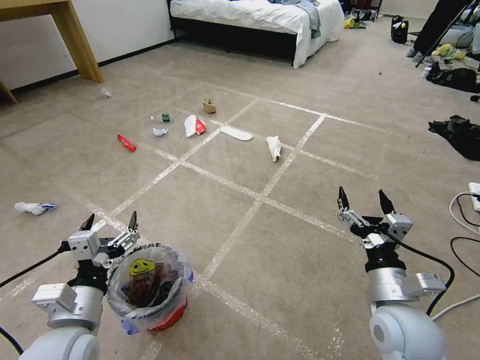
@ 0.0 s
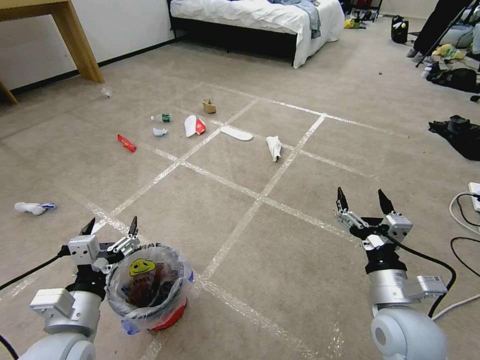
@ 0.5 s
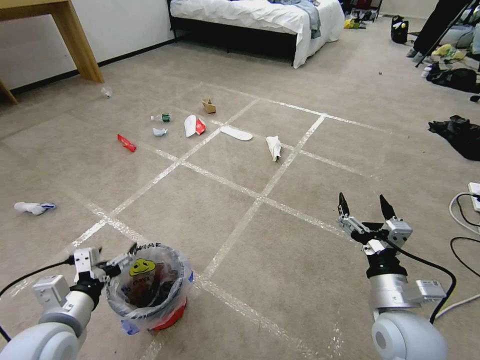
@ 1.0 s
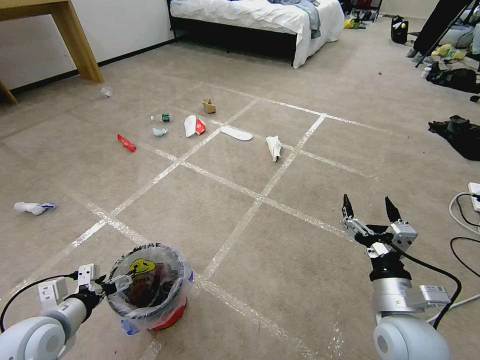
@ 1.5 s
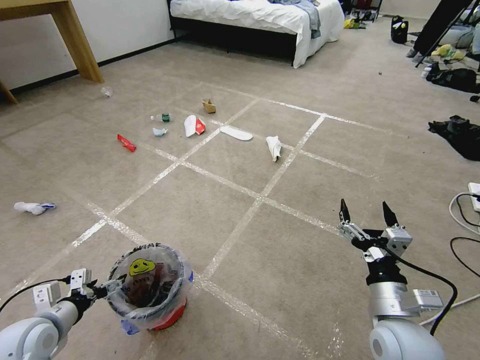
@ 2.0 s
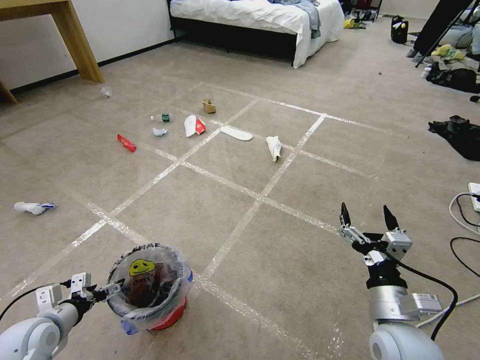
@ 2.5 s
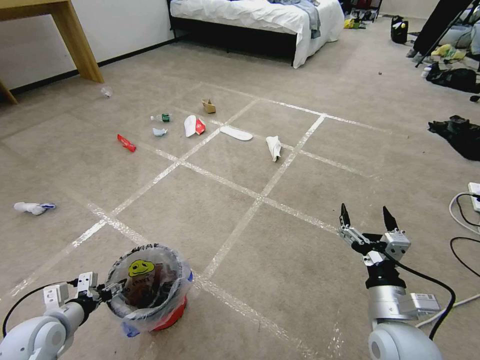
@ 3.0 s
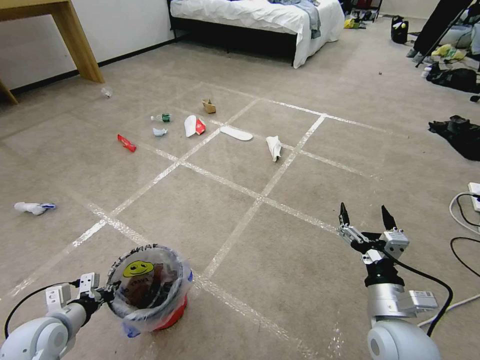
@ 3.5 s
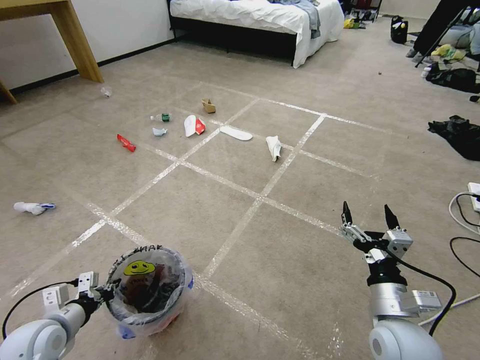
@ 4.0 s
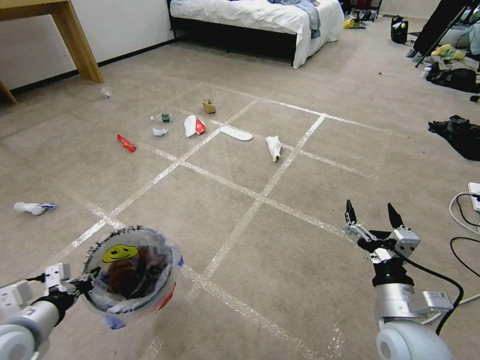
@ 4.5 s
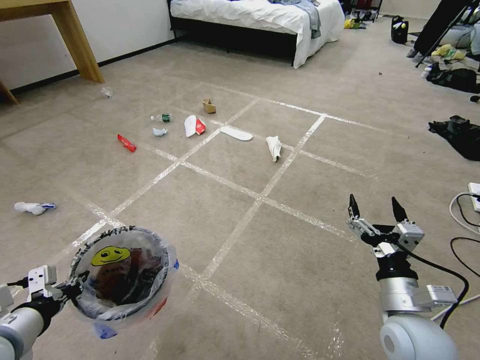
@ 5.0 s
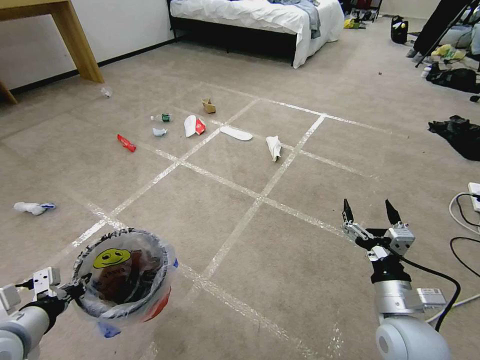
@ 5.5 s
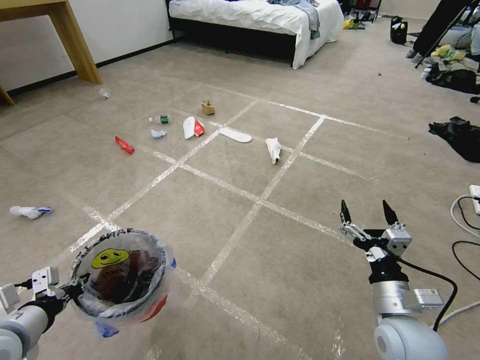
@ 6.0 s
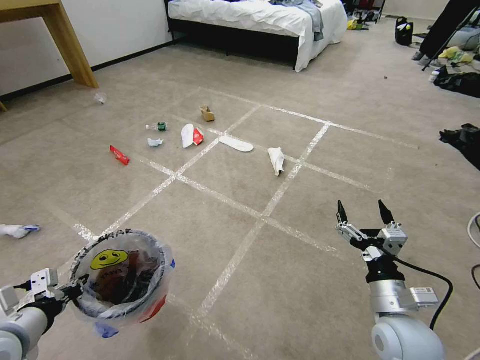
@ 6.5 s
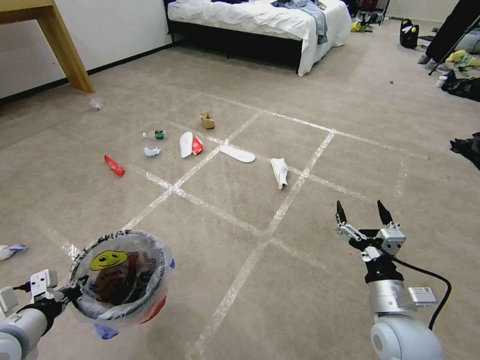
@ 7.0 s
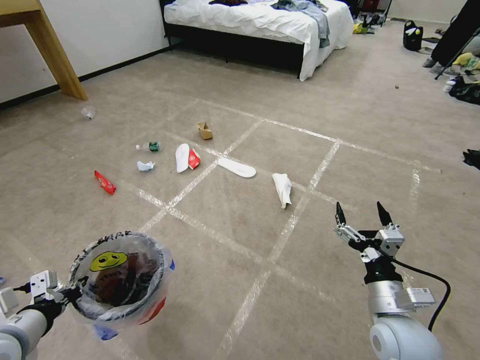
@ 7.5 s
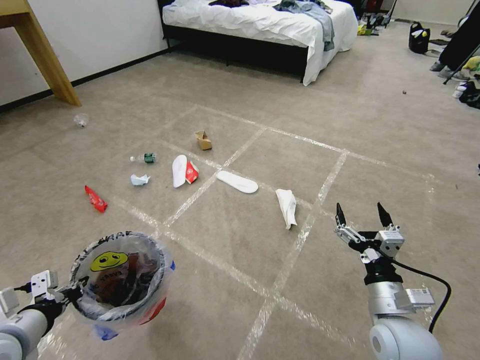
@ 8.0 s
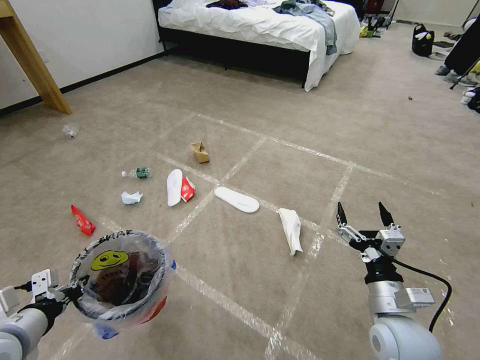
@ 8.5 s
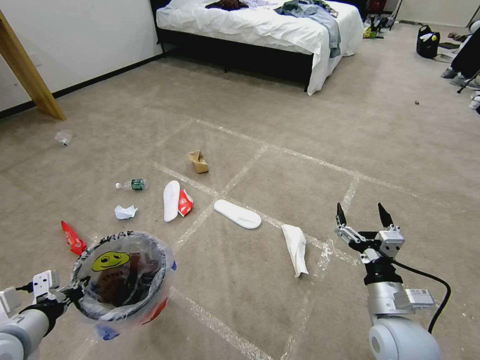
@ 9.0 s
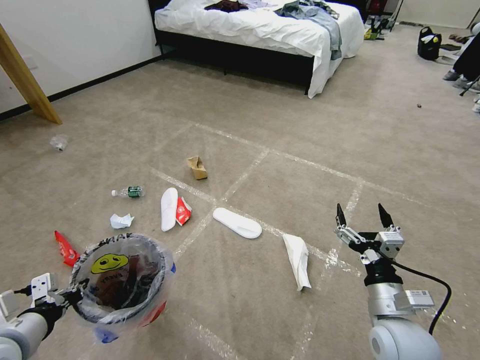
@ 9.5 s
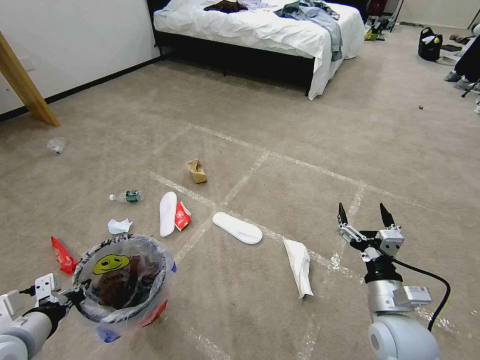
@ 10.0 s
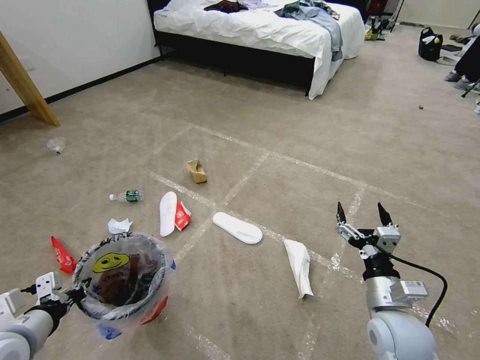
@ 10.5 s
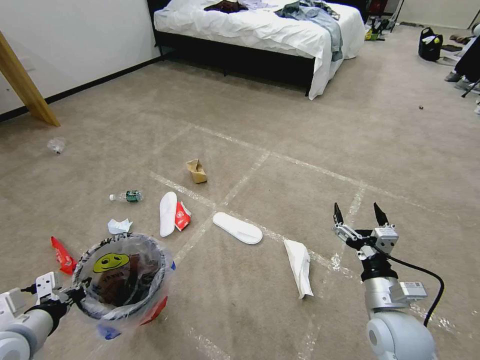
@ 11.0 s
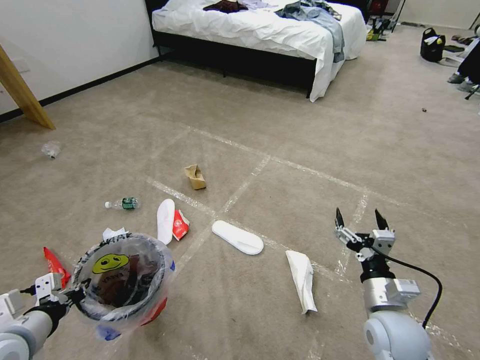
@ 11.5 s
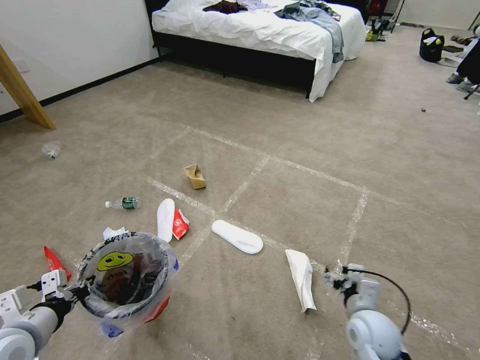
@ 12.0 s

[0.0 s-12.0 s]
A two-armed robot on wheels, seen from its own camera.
Task of the whole recording: Pick up the trash bin and place the garbage on the floor into it.
2.0 to 4.0 s: The left gripper closes.
4.0 to 6.0 s: The left gripper heads upward, covering roughly 10 cm.
10.0 to 12.0 s: The right gripper moves downward, about 10 cm.

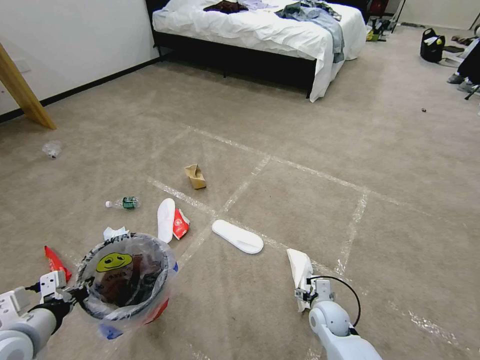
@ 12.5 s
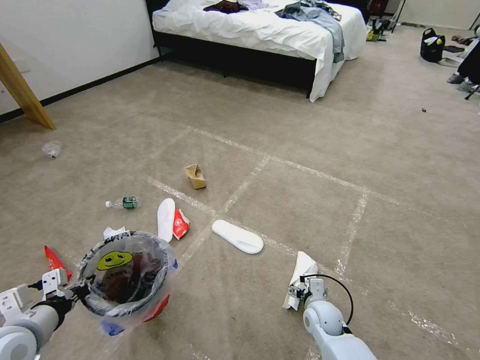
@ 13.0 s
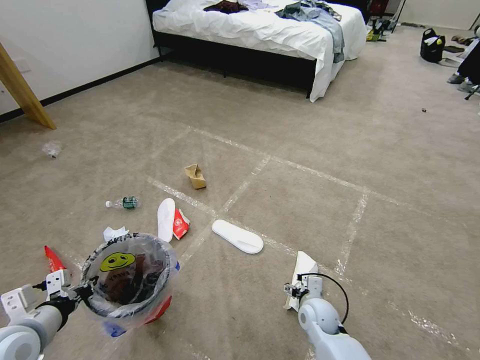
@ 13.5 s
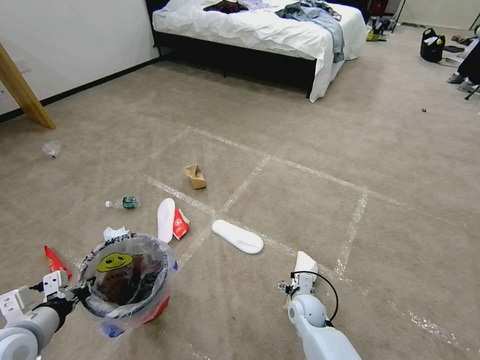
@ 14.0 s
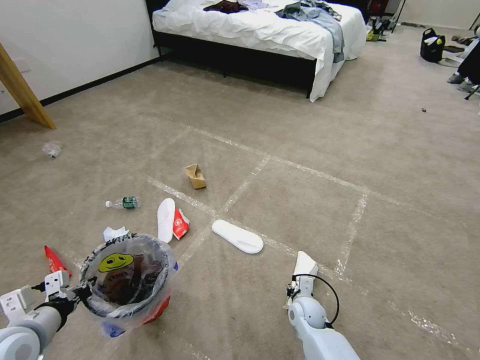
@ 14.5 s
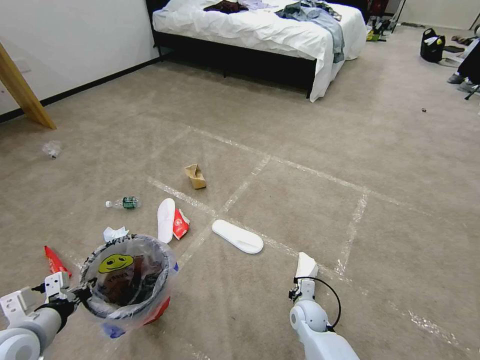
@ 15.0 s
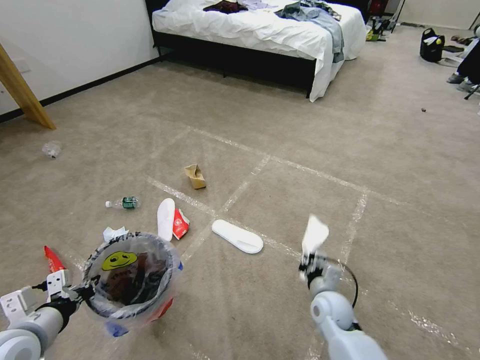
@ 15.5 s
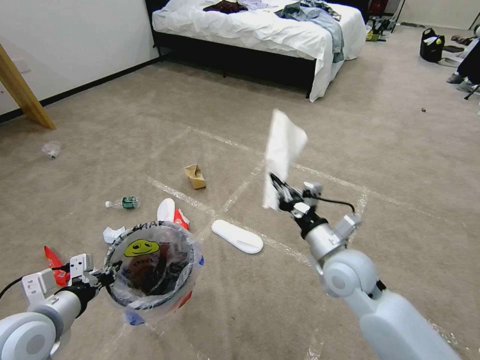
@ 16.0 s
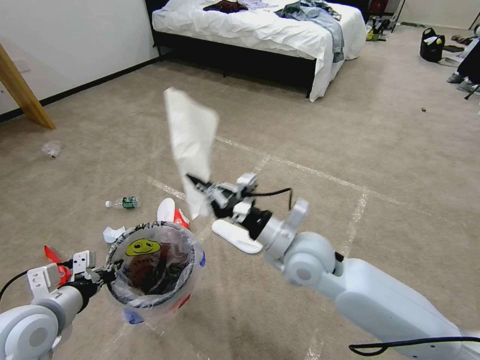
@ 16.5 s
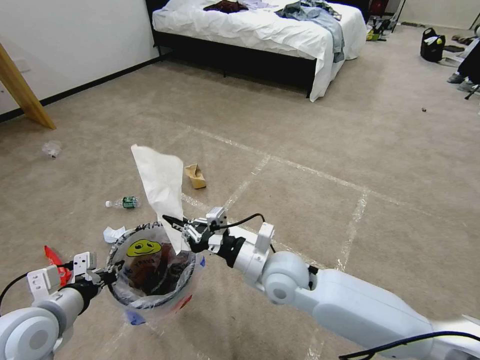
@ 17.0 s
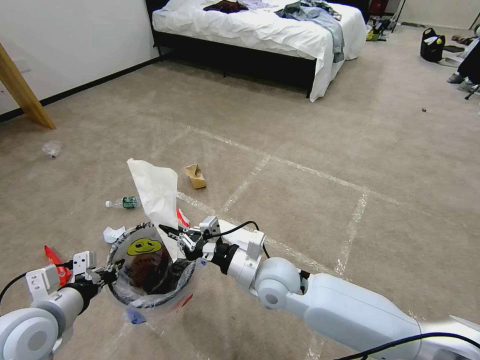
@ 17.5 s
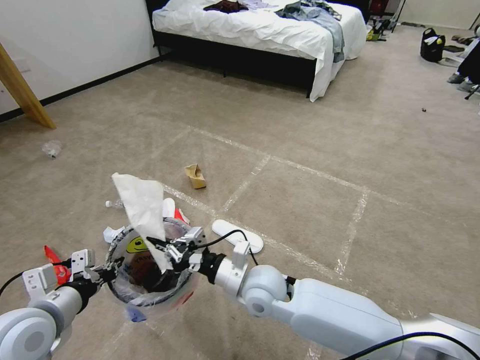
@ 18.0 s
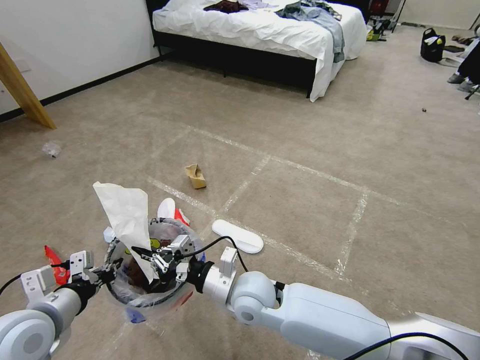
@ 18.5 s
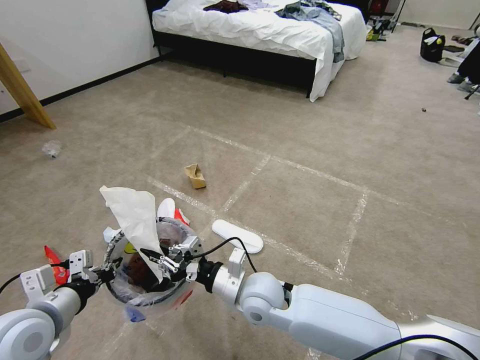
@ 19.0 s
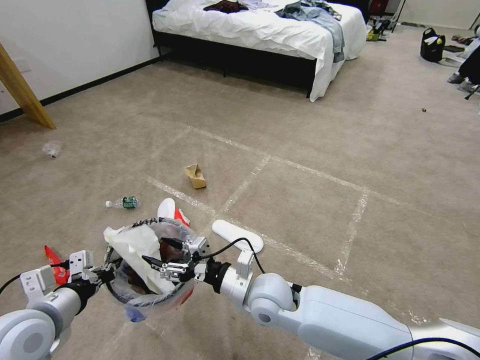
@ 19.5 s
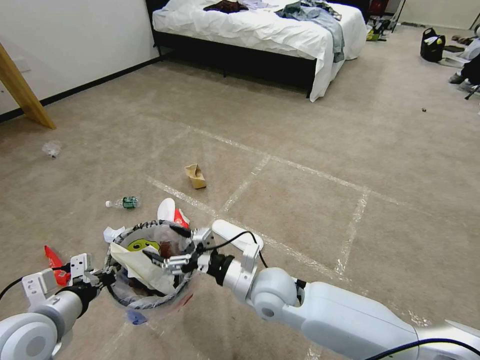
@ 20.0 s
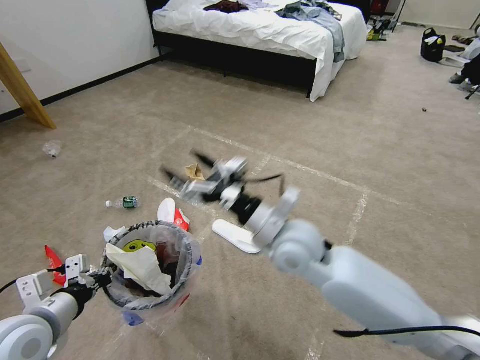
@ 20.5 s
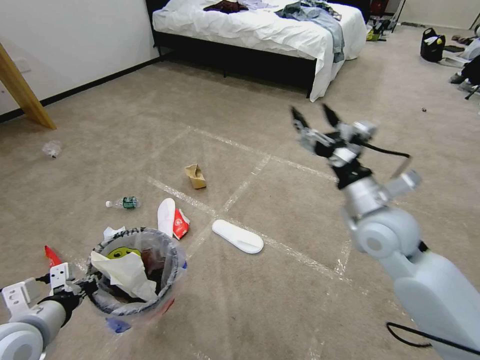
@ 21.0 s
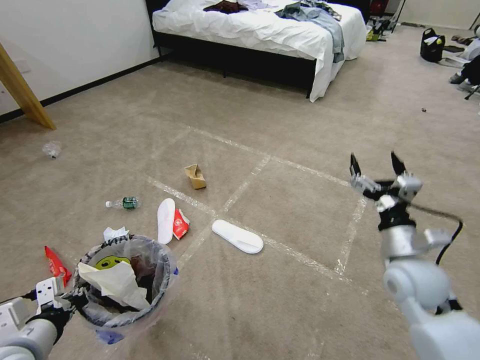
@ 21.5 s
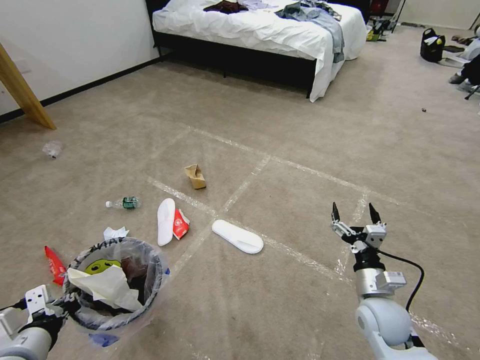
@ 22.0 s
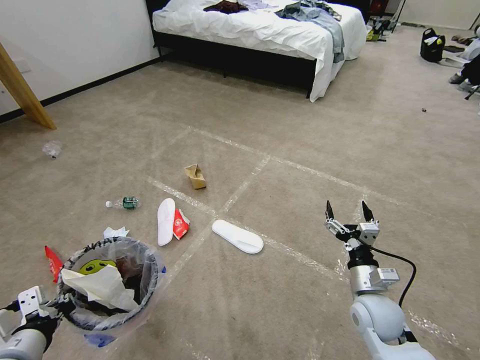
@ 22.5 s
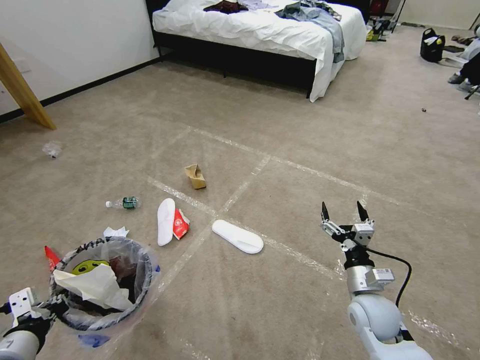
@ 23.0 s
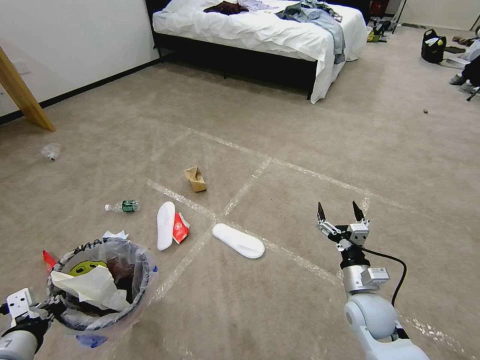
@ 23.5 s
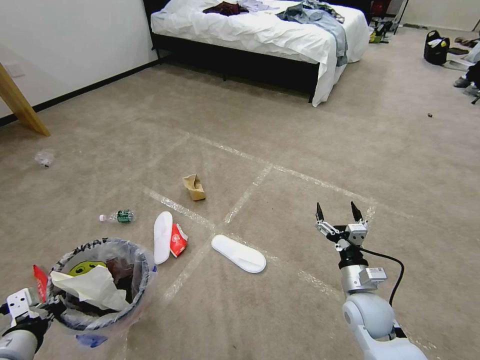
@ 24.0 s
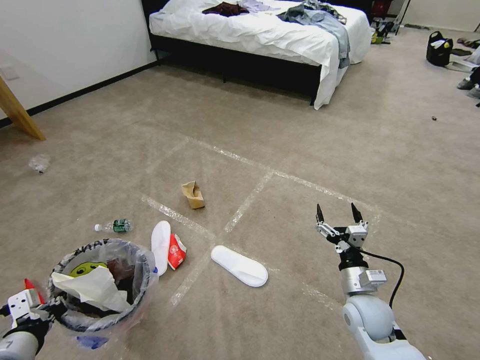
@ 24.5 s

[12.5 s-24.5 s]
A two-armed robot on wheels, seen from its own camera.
Task of the whole recording: Pick up the trash bin and place the garbage on the floor into it.
12.5 to 14.5 s: The right gripper goes roughly 5 cm to the left, and closes up.
14.5 to 16.5 s: The right gripper is displaced upward by approximately 30 cm, and closes its fingers, while the left gripper ends up approximately 5 cm from where it was.
16.5 to 18.5 s: The right gripper is displaced to the left and downward by some 15 cm.
18.5 to 20.5 s: The right gripper travels upward, to the right and forward by about 15 cm, and opens its fingers.
20.5 to 22.5 s: The left gripper shifts some 5 cm backward; the right gripper shifts about 25 cm downward, to the right and backward.

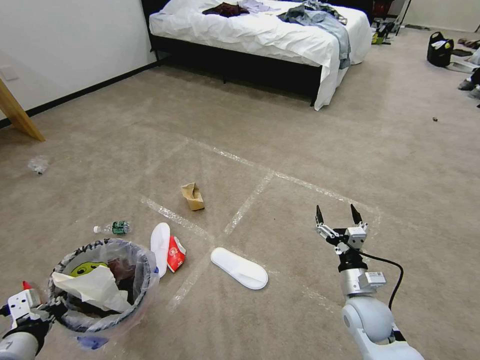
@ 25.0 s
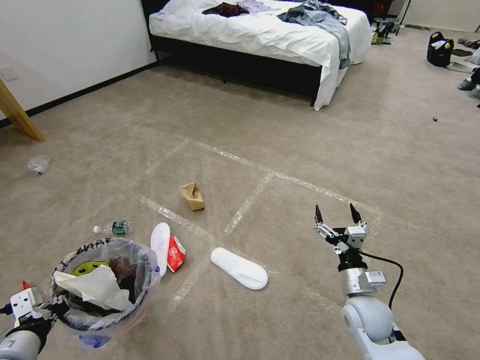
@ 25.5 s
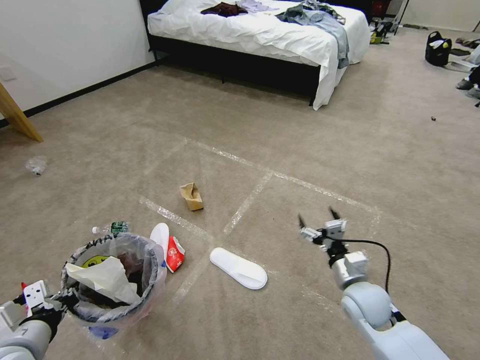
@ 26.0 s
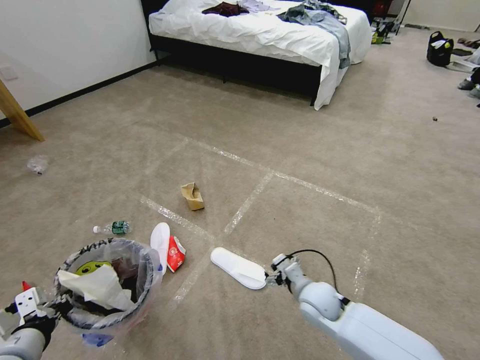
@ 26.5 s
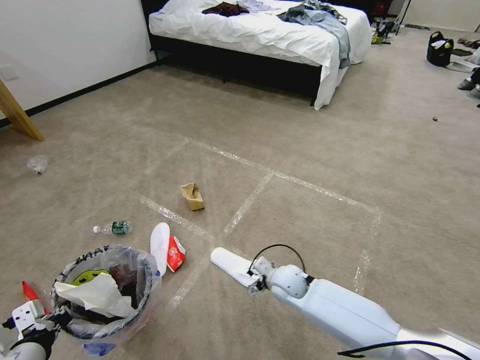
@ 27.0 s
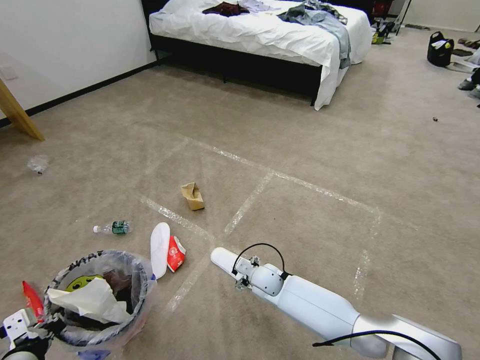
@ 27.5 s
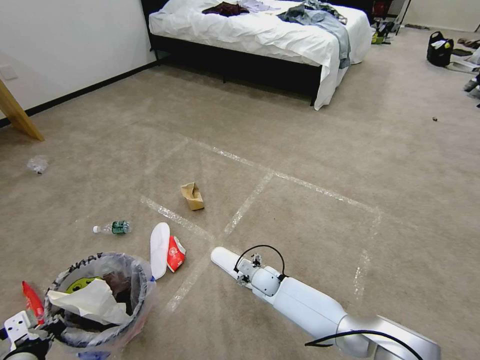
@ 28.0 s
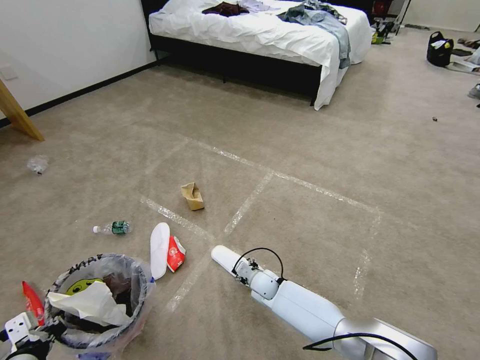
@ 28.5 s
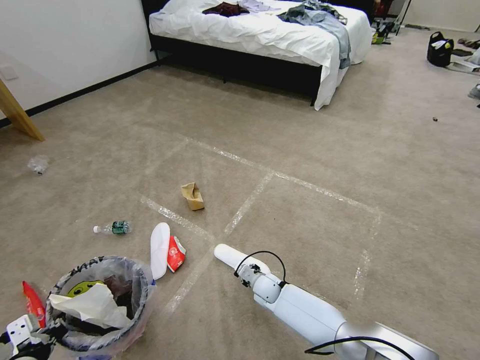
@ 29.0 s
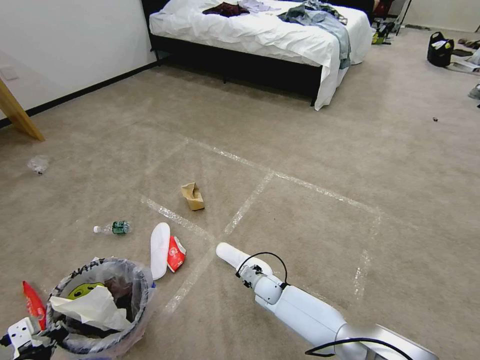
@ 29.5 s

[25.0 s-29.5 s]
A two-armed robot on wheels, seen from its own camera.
Task of the whole recording: Pick up the trash bin and place the garbage on the floor into it.
25.0 to 27.0 s: The right gripper travels to the left and forward by some 20 cm.
27.0 to 29.5 s: The right gripper is displaced downward by some 10 cm, and closes up.
